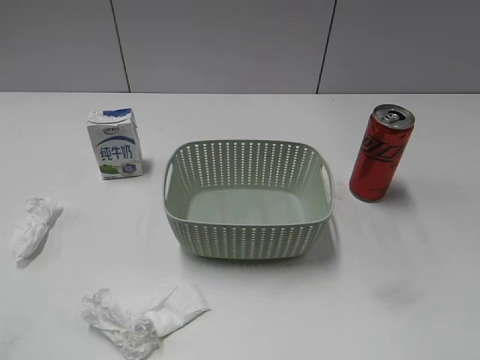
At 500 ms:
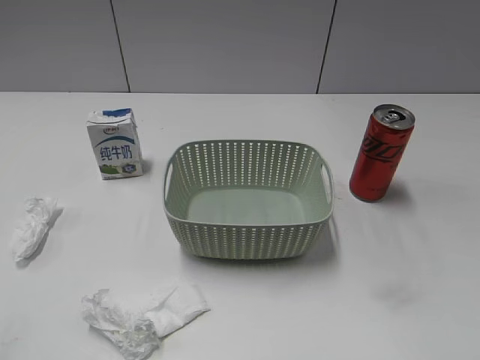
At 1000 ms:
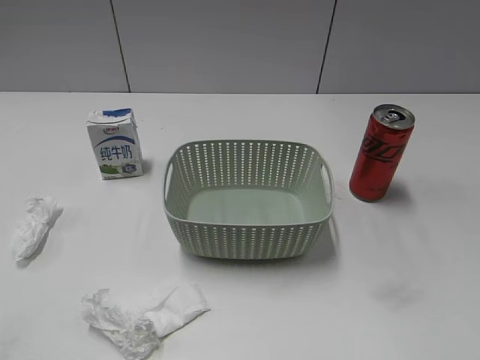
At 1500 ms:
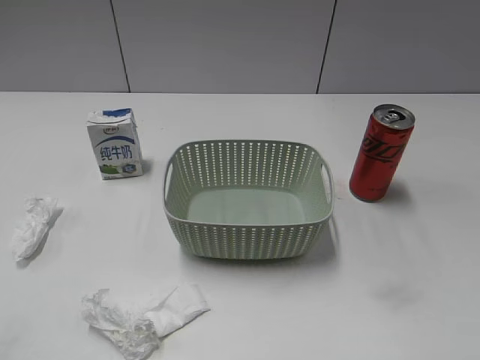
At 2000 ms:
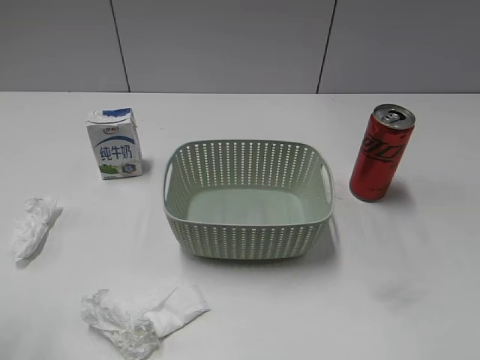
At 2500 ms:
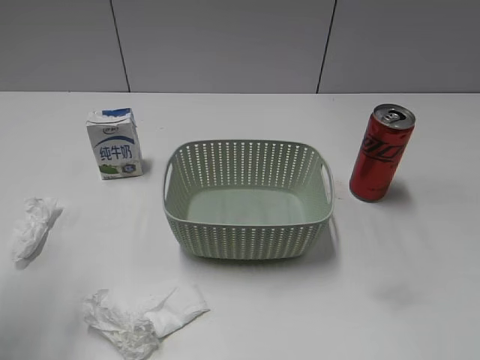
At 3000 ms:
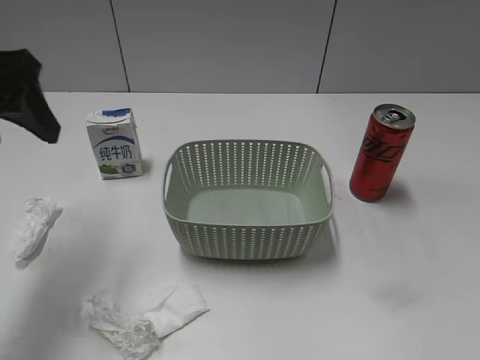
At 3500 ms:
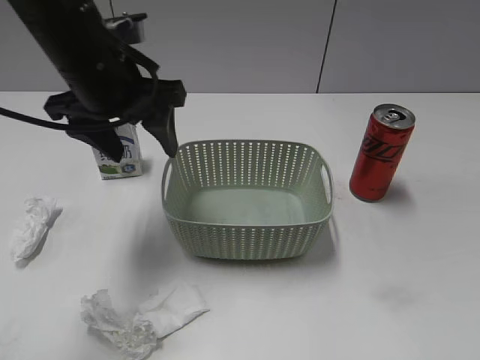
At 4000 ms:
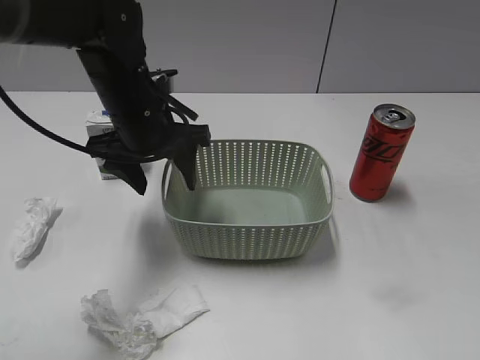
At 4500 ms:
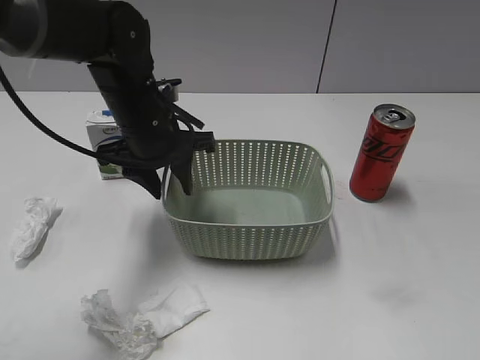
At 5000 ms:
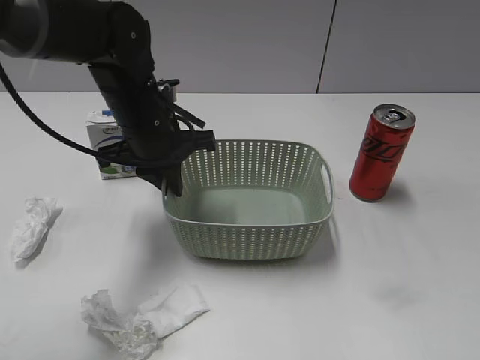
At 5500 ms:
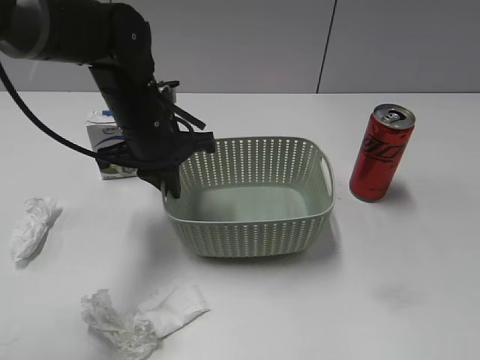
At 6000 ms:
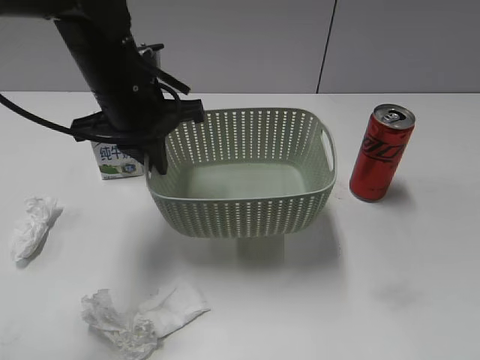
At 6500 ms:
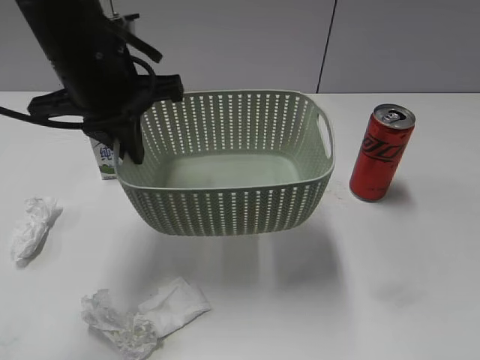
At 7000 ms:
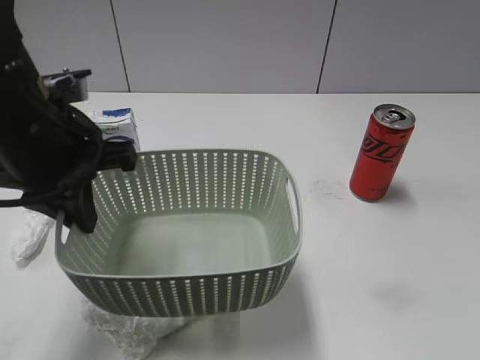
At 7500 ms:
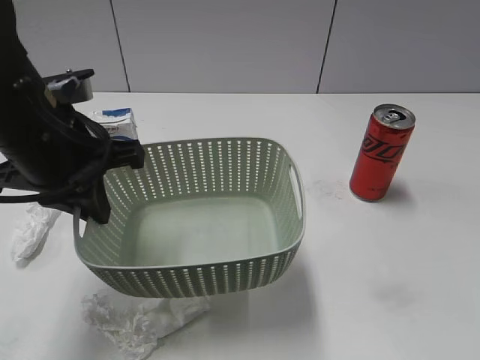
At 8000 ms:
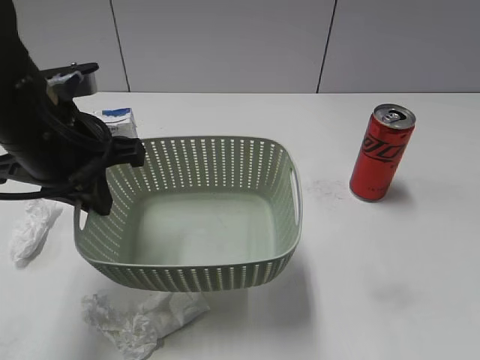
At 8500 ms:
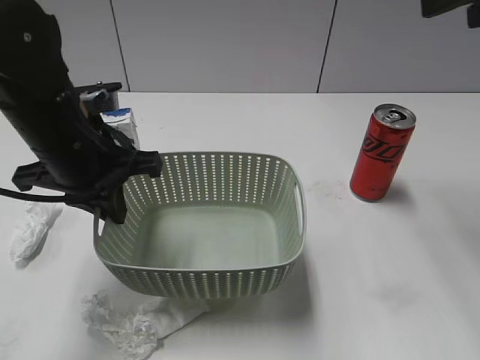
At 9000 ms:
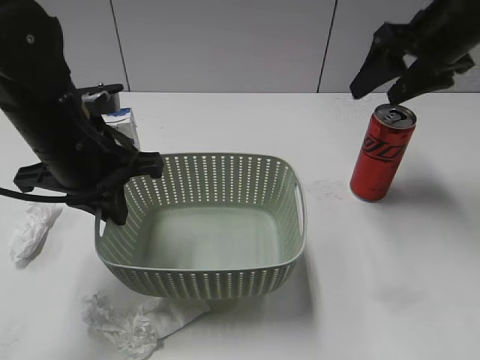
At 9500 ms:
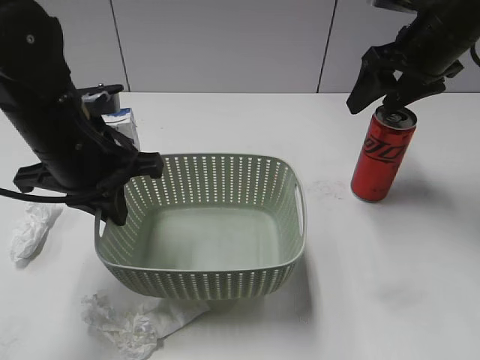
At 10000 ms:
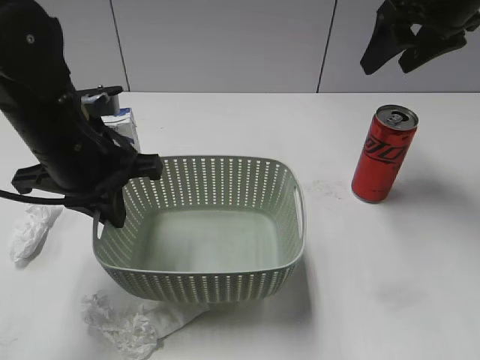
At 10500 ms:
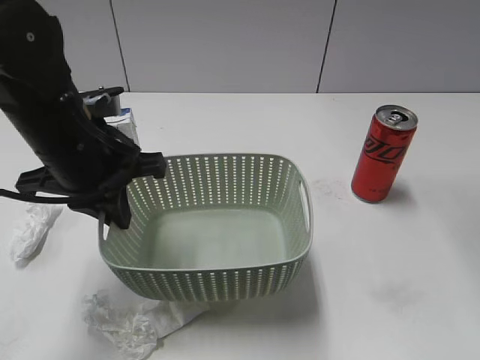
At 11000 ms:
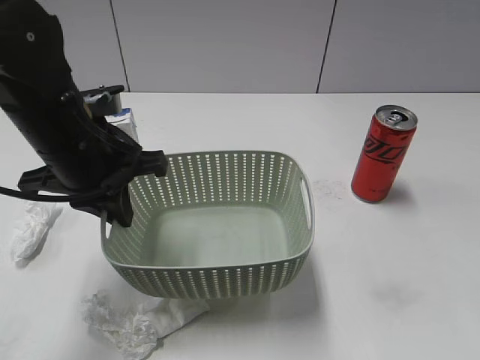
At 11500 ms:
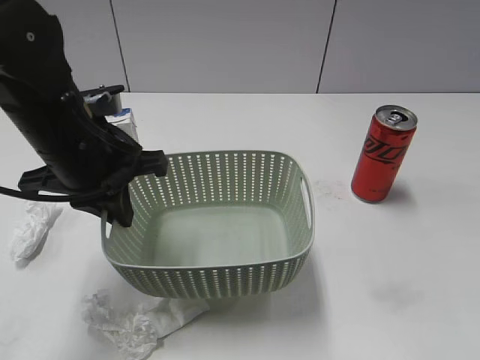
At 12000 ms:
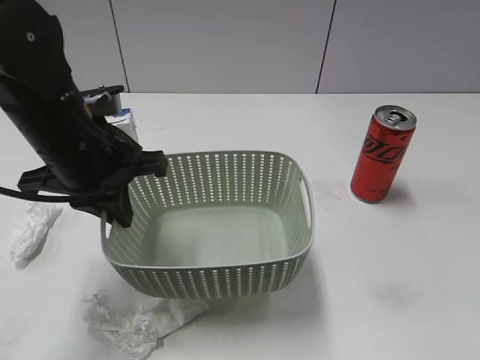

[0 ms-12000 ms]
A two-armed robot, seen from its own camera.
Step, 3000 ms to 5000 ms: Grasp the basket with left gripper.
Step, 5500 ms to 8000 ms: Lift the basket with left gripper.
2000 ms to 4000 ms: The left gripper heads forward, to the right and downward, covering some 35 cm.
4000 ms to 6000 ms: The left gripper closes.
6000 ms to 8000 ms: The right gripper heads forward and upward, covering approximately 15 cm. The left gripper is displaced backward and to the left by about 10 cm.
8000 ms to 10000 ms: The right gripper is displaced forward by some 30 cm.
10000 ms to 12000 ms: The right gripper travels backward by about 40 cm.

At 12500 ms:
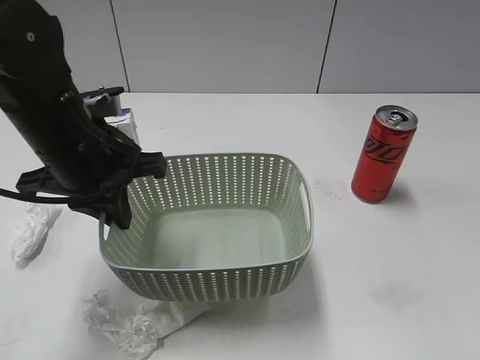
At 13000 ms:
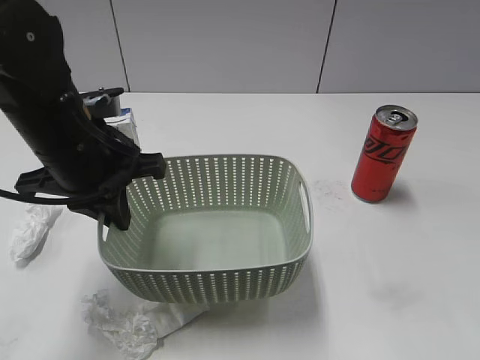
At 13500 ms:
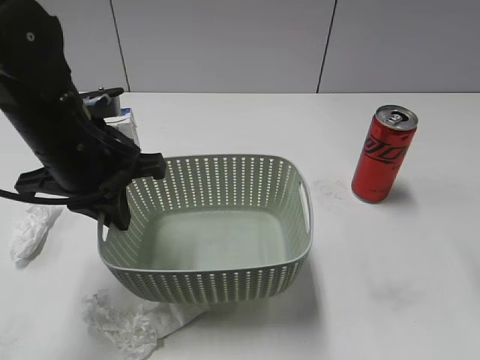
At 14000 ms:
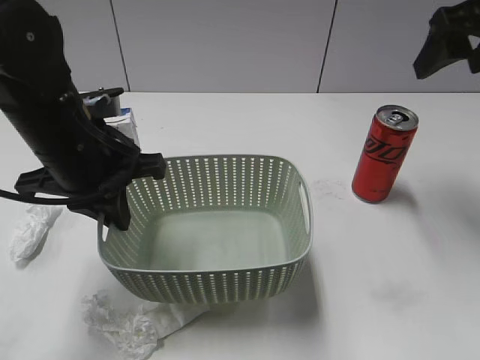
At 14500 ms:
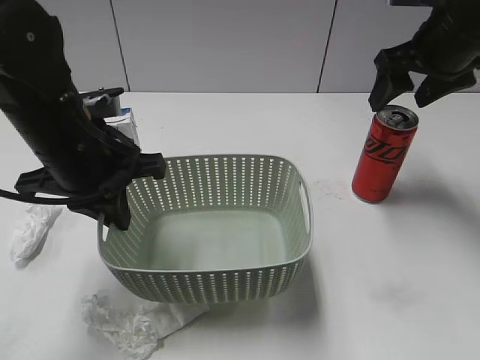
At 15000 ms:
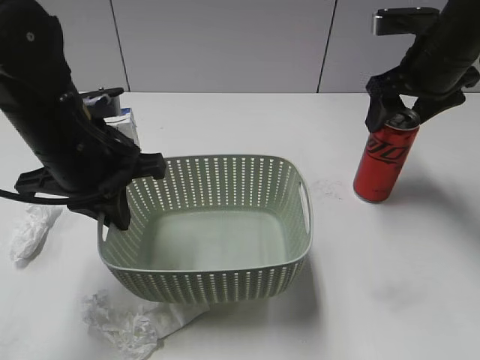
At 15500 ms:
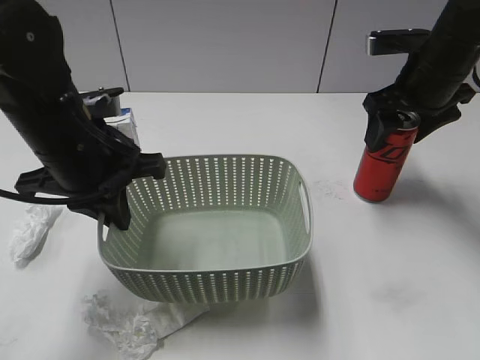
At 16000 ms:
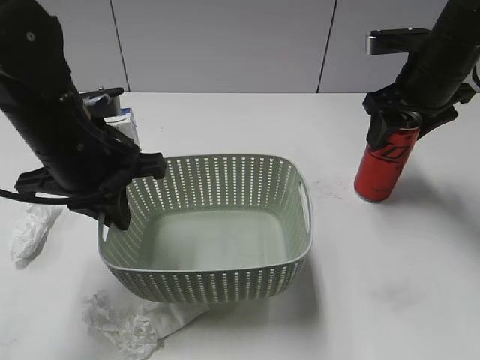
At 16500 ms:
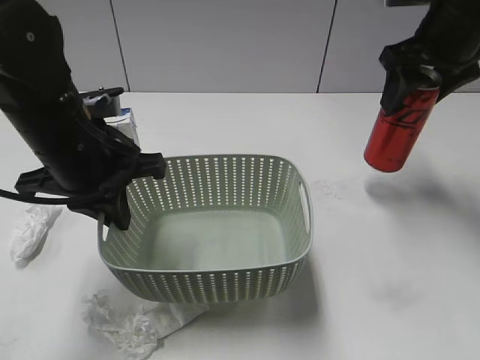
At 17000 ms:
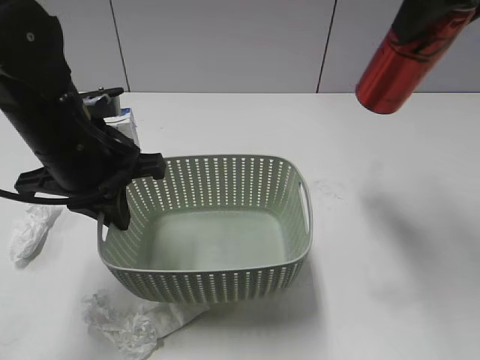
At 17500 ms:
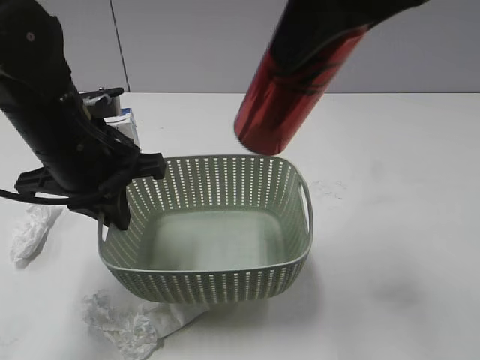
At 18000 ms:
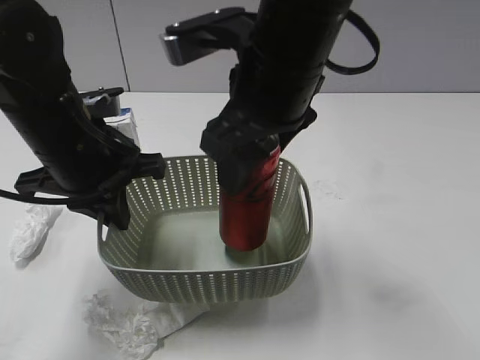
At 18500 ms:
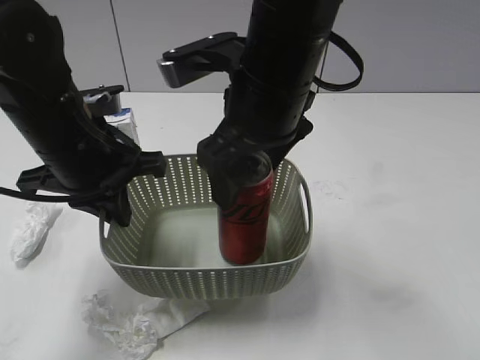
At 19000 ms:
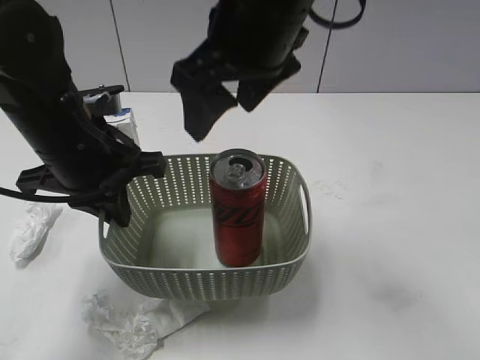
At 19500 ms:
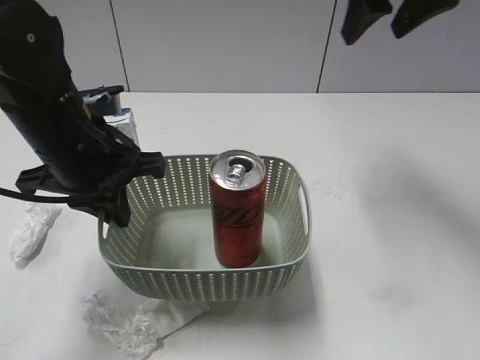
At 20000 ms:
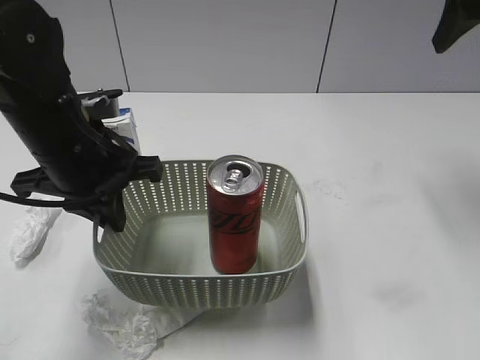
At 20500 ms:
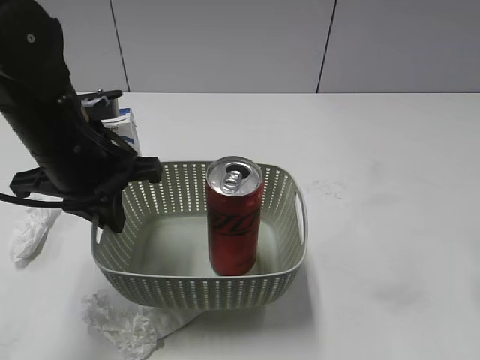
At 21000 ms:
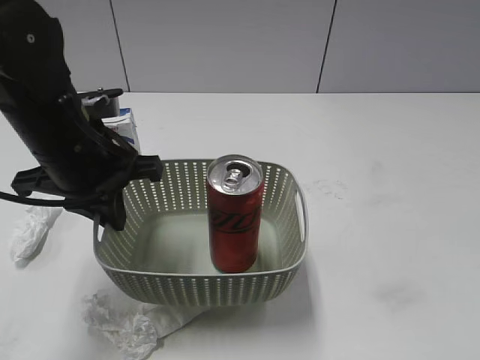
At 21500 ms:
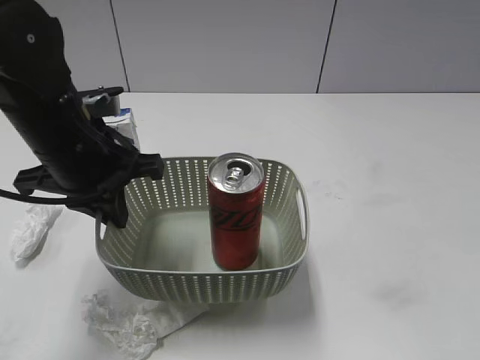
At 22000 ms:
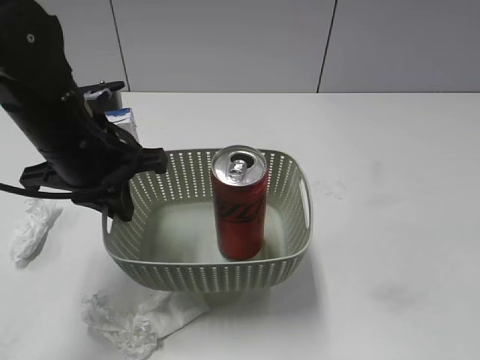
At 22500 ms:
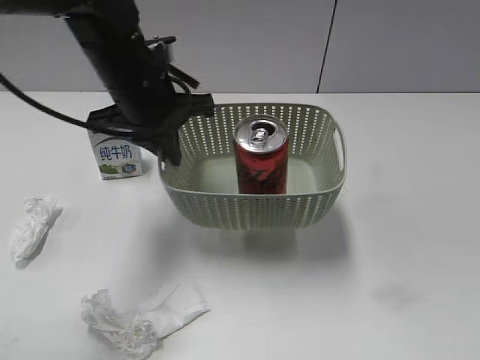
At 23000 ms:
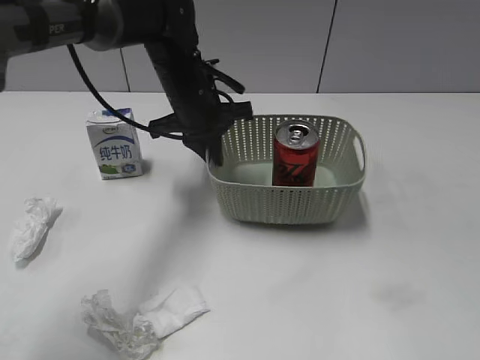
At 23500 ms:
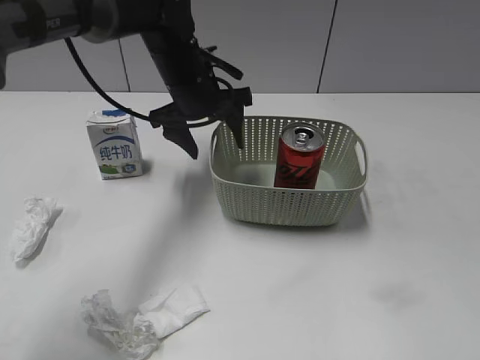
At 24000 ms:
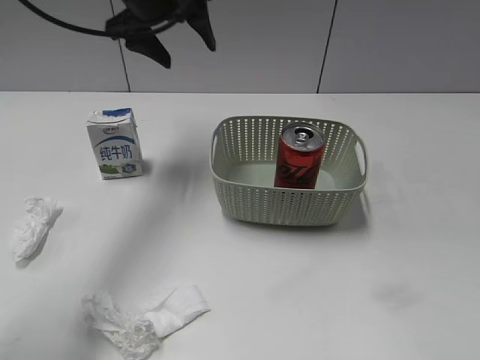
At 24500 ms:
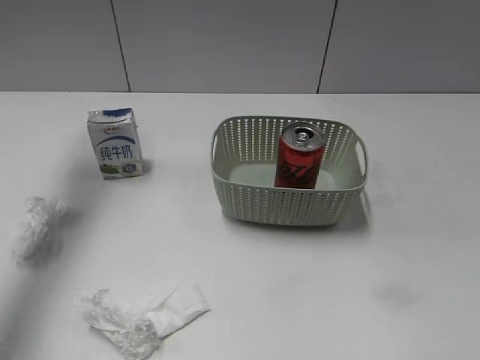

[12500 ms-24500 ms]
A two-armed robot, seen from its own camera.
Step, 12500 ms to 16000 ms: Grasp the cola can with right gripper.
Step, 16500 ms to 18500 ms: Place the cola can in the basket with right gripper.
Step, 19000 ms to 23000 ms: Place the basket on the table with left gripper.
12500 ms to 14500 ms: The right gripper shifts about 40 cm forward.
14500 ms to 16500 ms: The right gripper closes up.
16500 ms to 18500 ms: The right gripper shifts roughly 25 cm to the left and backward, and opens its fingers.
18500 ms to 20500 ms: The right gripper is displaced to the right by about 25 cm.
20500 ms to 22500 ms: The left gripper travels forward by roughly 5 cm, while the right gripper heads backward, covering roughly 25 cm.
22500 ms to 24500 ms: The left gripper is displaced upward, to the left and forward by approximately 25 cm, and opens its fingers.

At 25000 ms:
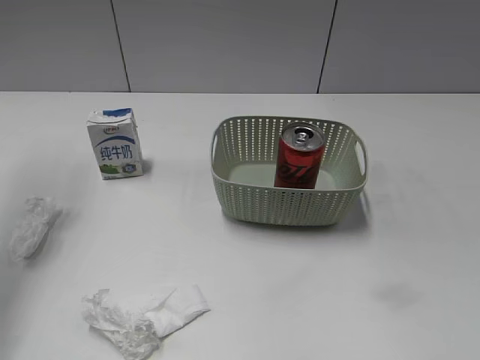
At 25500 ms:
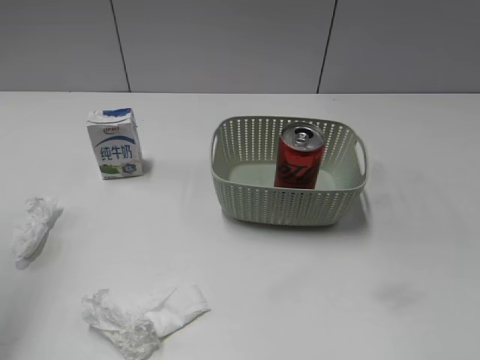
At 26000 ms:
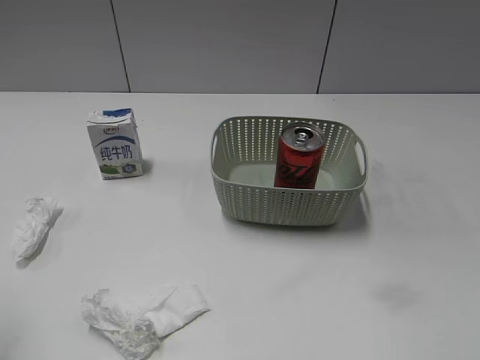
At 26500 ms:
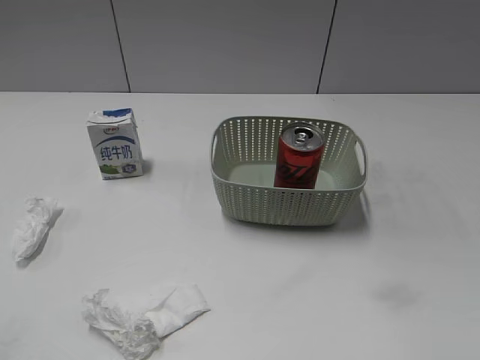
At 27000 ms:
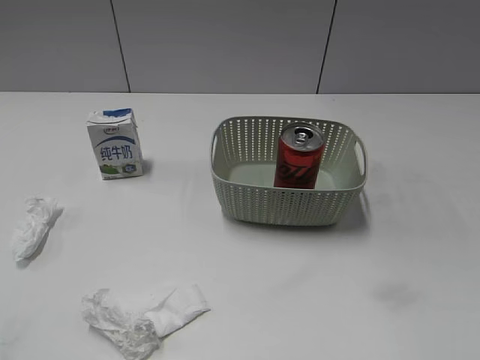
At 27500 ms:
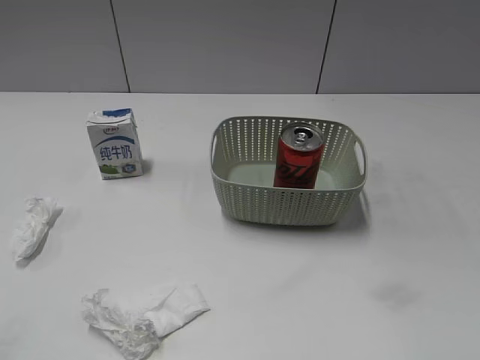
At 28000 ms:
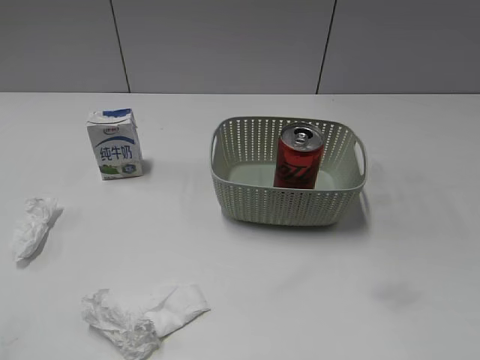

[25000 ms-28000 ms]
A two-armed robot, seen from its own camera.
25000 ms to 26500 ms: The left gripper shifts approximately 35 cm backward and downward.
